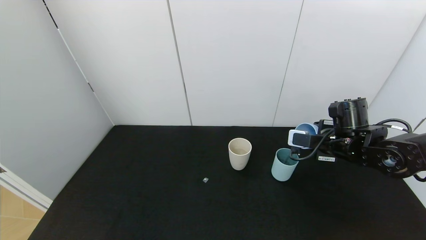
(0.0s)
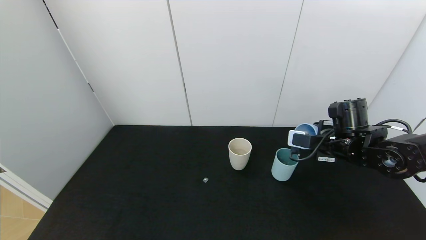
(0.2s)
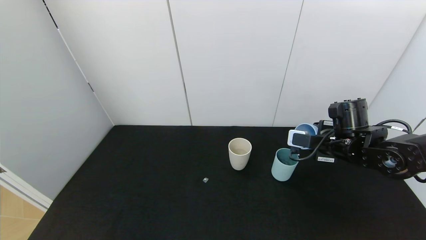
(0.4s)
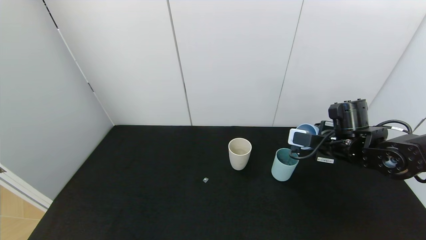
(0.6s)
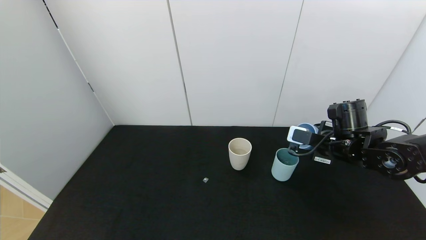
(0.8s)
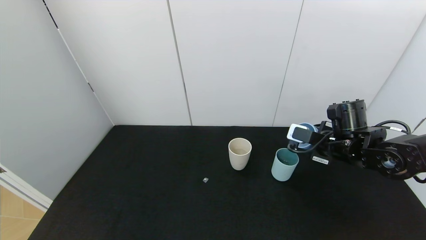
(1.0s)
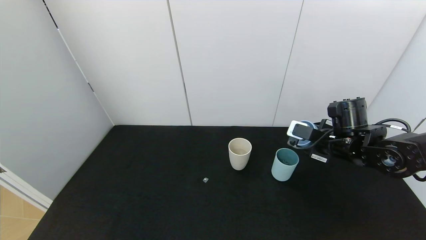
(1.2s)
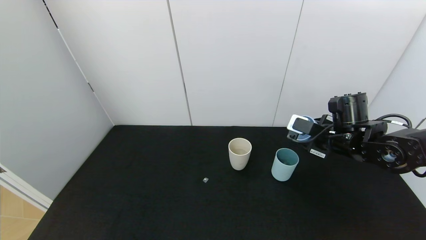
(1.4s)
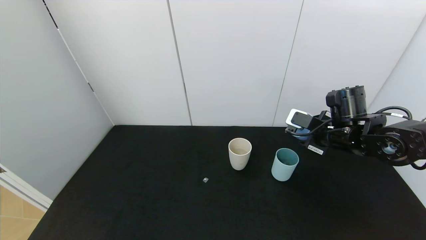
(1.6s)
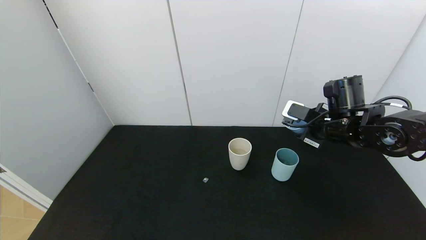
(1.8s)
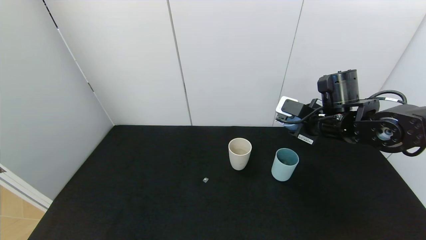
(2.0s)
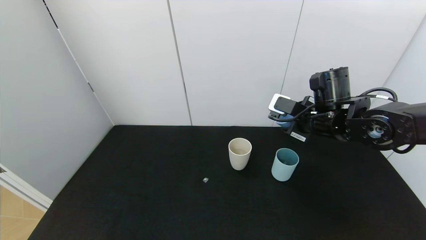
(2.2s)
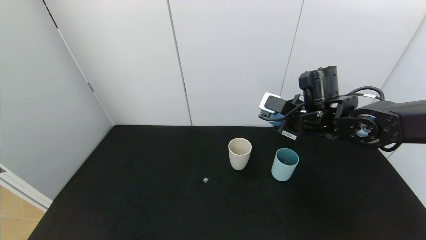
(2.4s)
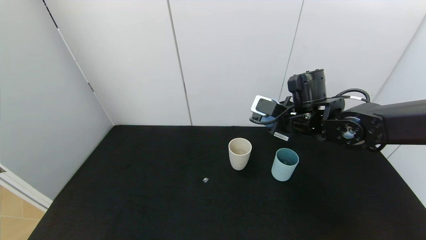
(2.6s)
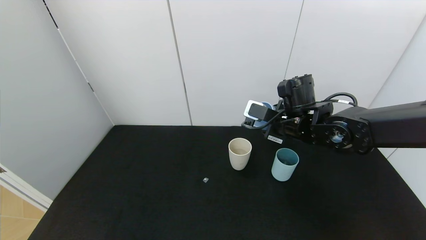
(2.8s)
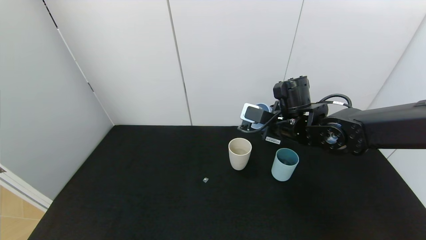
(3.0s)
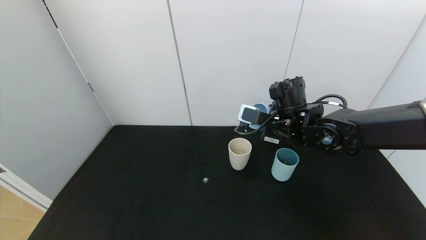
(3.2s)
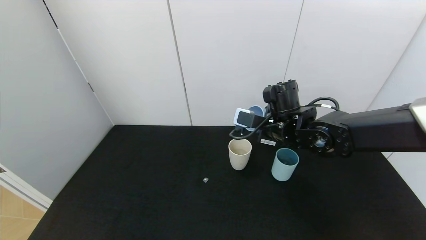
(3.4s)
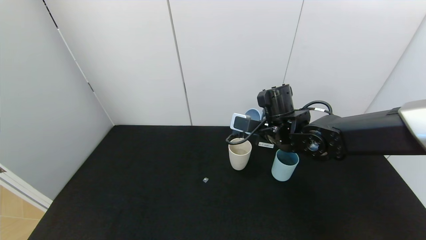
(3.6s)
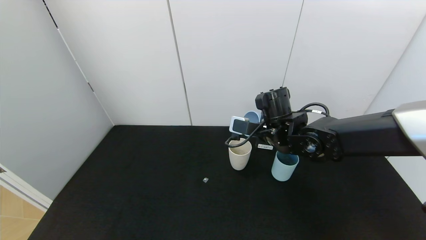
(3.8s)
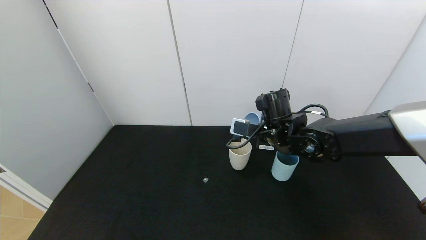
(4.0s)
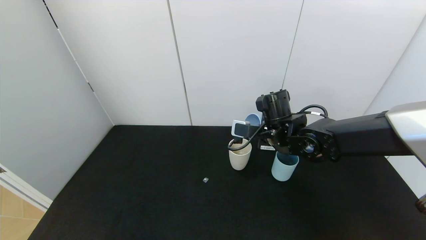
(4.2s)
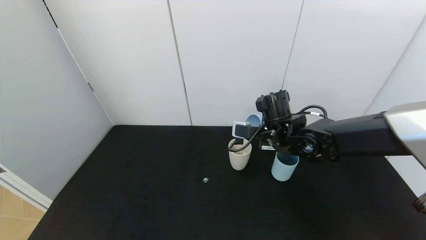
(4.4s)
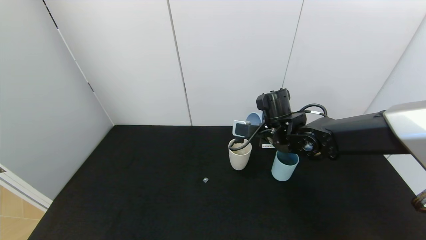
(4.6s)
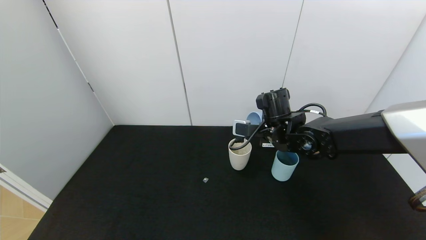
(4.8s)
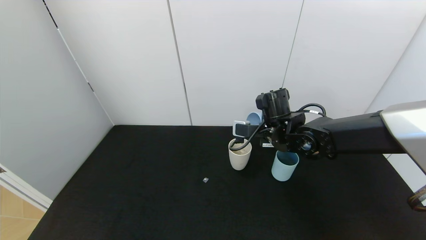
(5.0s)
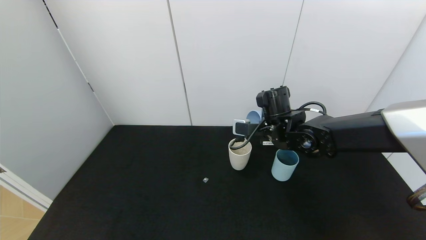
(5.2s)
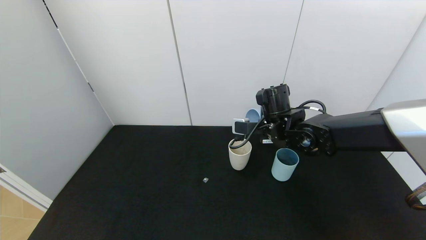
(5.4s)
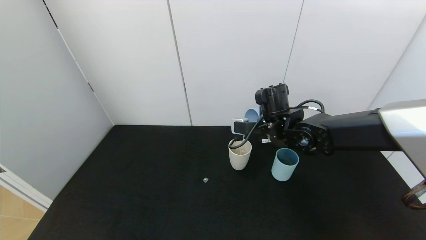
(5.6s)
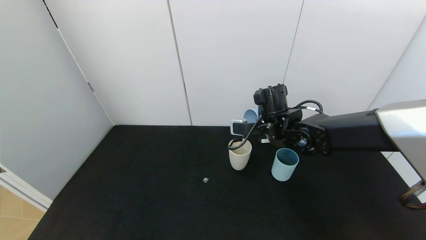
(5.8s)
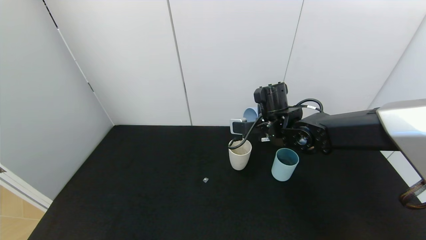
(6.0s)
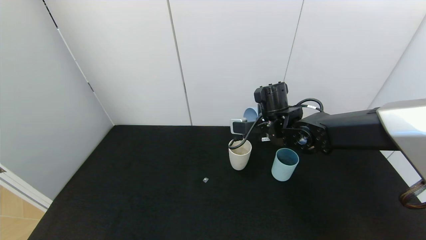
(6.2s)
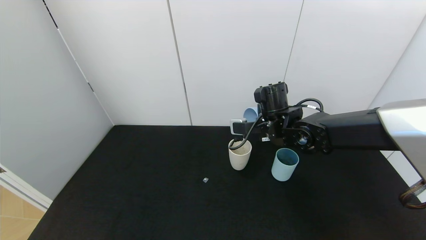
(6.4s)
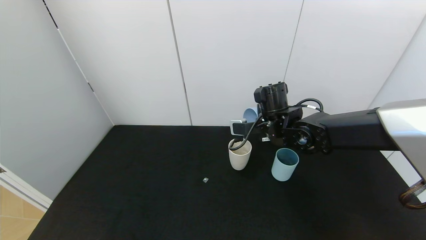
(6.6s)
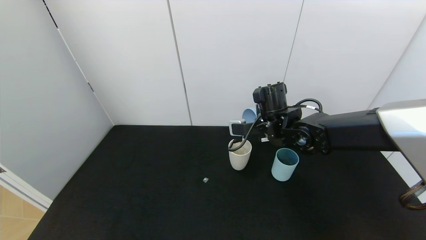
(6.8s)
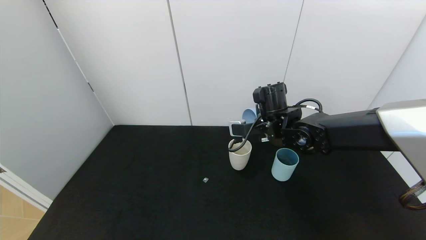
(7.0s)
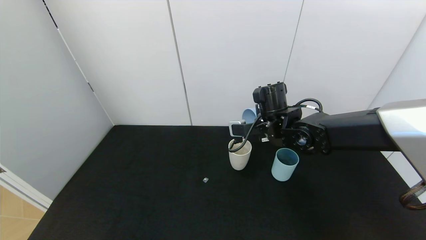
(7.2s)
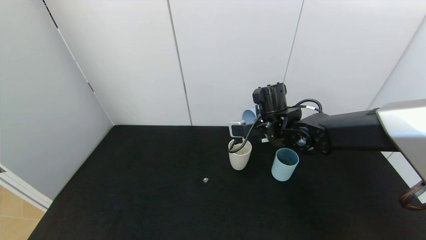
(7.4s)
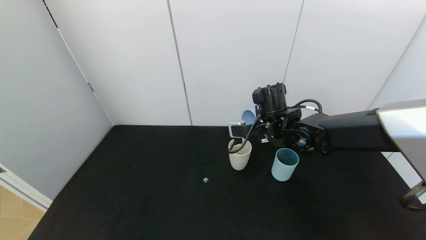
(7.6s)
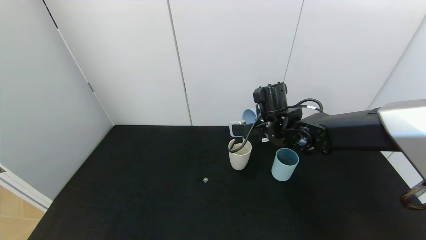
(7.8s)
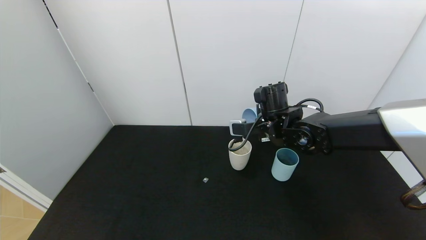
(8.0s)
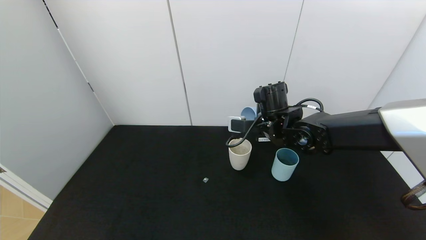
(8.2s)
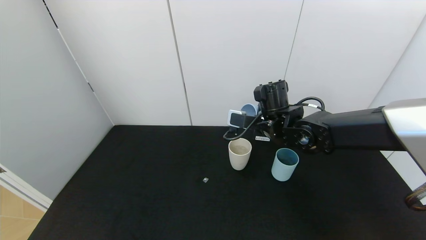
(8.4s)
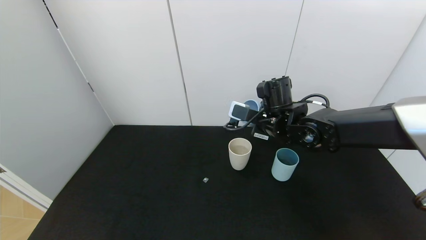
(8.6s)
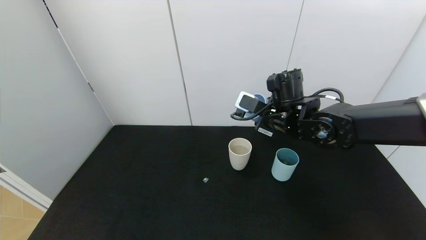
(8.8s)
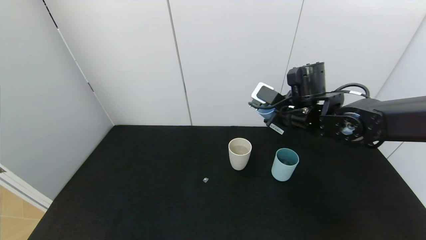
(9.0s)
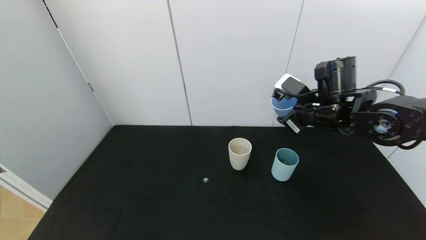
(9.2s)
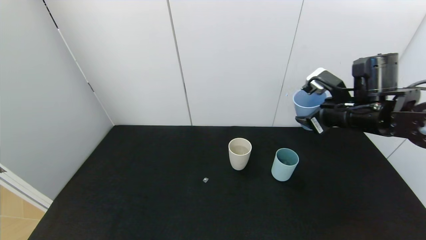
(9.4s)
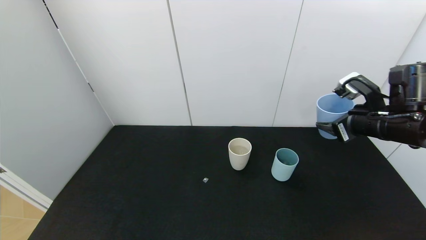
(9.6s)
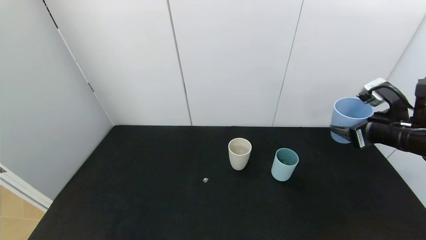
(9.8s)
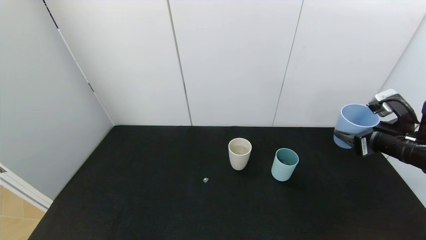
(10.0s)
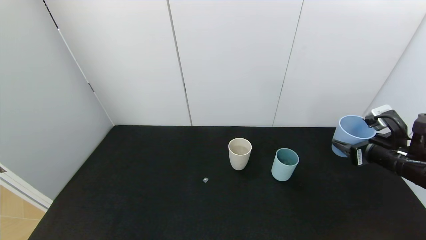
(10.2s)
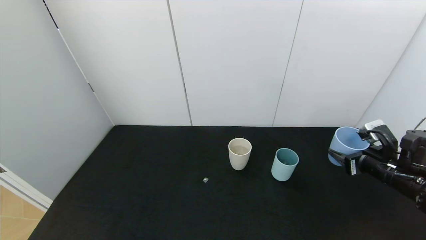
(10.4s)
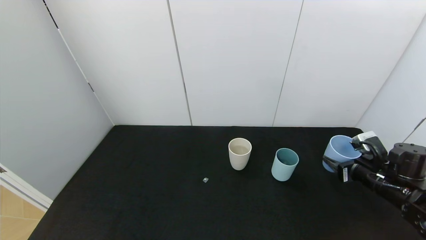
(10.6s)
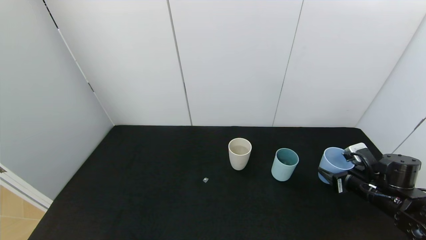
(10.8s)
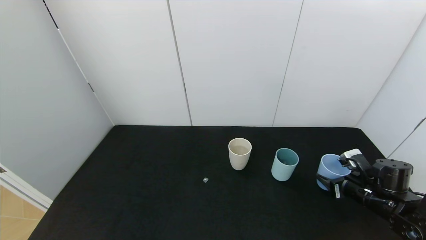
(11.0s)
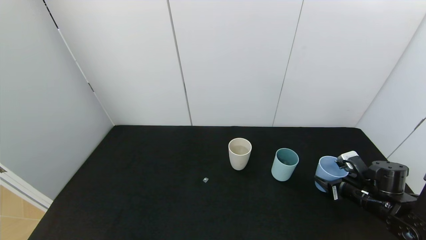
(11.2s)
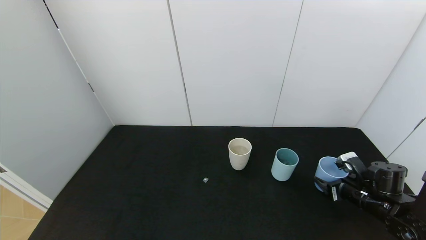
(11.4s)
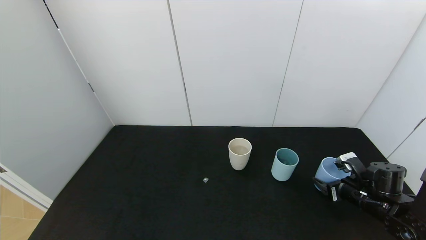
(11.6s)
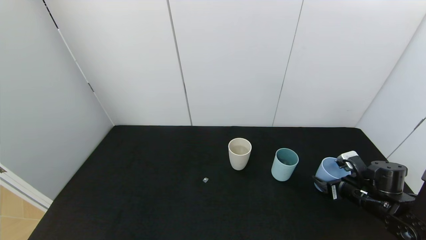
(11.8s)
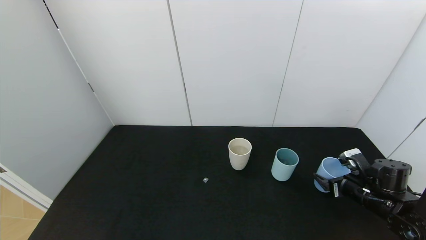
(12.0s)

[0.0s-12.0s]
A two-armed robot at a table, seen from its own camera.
Task of the whole recording: use the gripper to pour the water into the other two cups on black table.
Step, 1.6s to 8.8s: Pour water from blue cup to white cup with the right gripper.
1.6s to 3.0s: The right gripper is displaced to the left by about 10 cm.
3.0s to 4.4s: The grippers make only small movements.
4.4s to 6.0s: The grippers move only a little.
6.0s to 7.6s: Neither gripper changes place.
7.6s to 9.0s: The right gripper shifts approximately 5 cm to the right.
9.0s to 10.4s: The right gripper travels to the right, downward and backward by approximately 25 cm.
10.4s to 12.0s: The right gripper is displaced downward by some 10 cm, and opens its fingers.

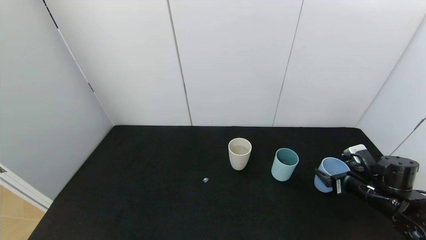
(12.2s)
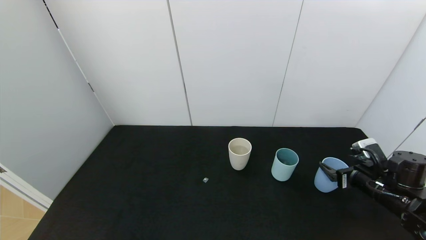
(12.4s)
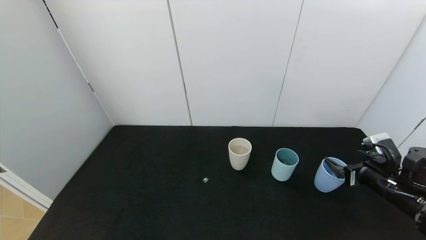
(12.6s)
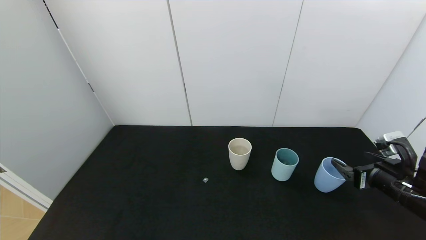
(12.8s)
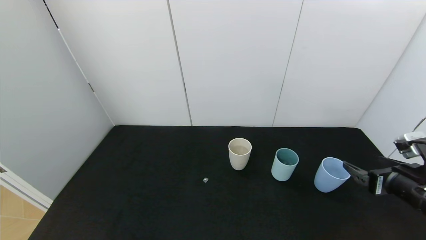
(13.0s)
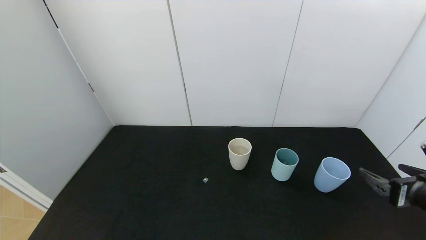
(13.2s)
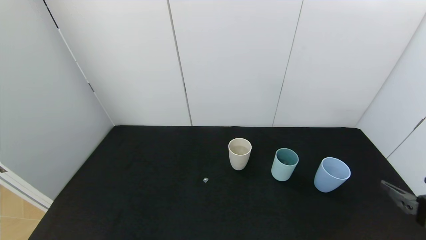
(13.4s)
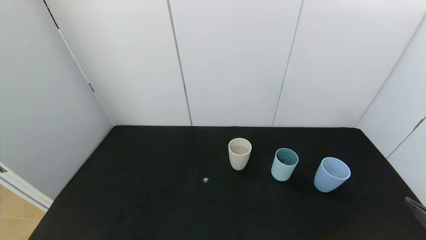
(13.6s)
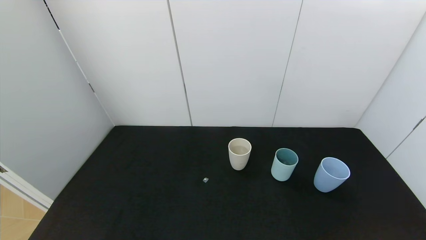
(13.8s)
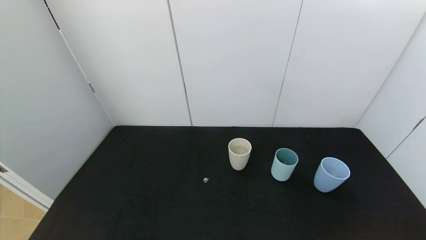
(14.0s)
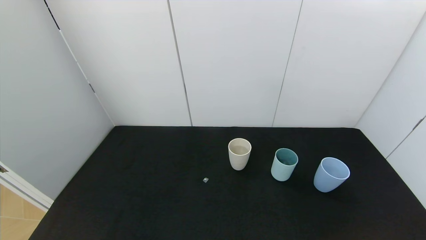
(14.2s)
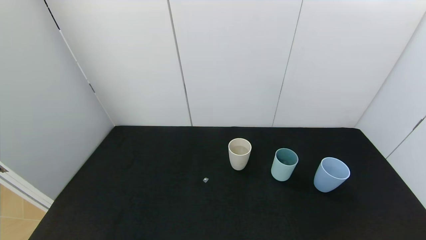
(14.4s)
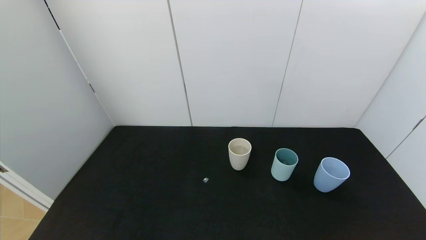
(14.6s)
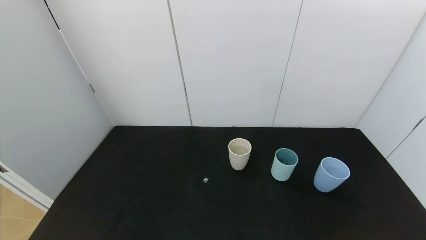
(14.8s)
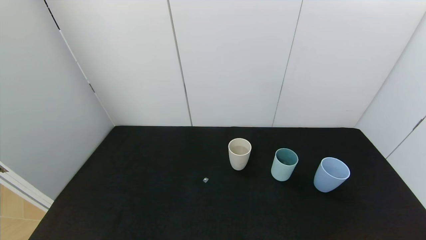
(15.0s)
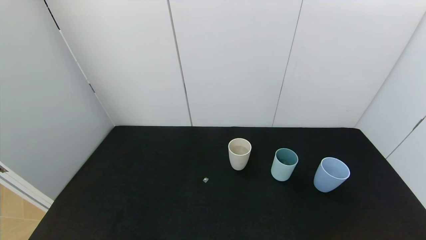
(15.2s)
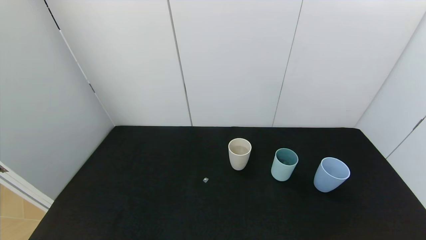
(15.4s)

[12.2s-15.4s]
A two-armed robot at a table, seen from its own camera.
Task of the whole recording: use the gripper to pour the water into the other two cups on black table.
12.2s to 13.8s: The right gripper is displaced backward and upward by roughly 25 cm.
